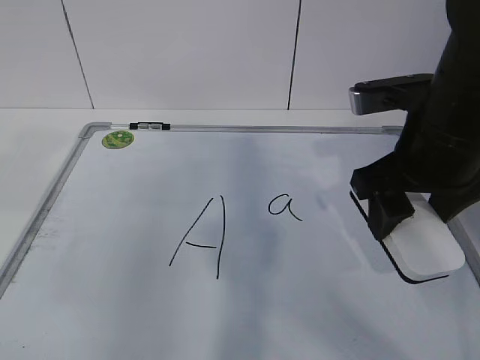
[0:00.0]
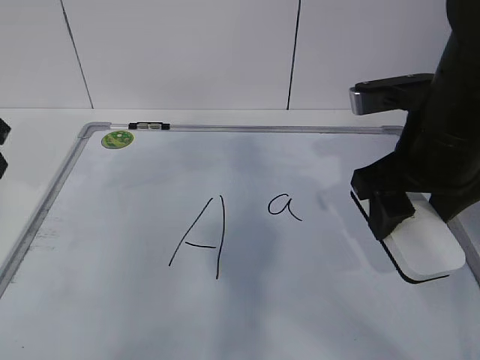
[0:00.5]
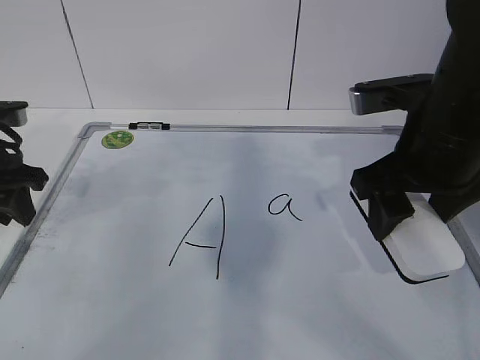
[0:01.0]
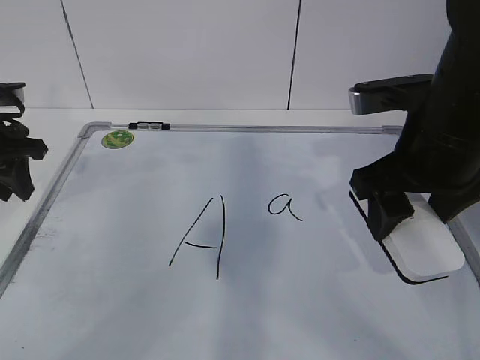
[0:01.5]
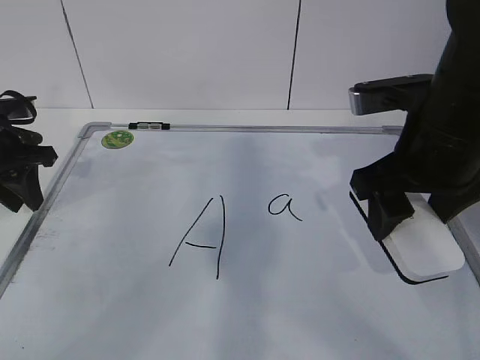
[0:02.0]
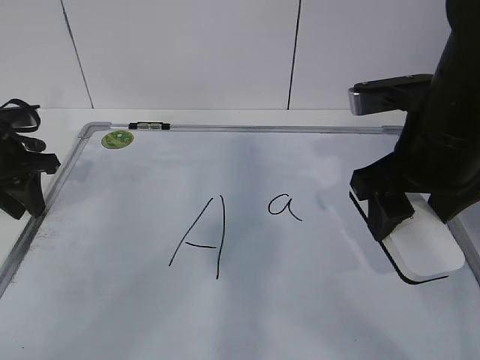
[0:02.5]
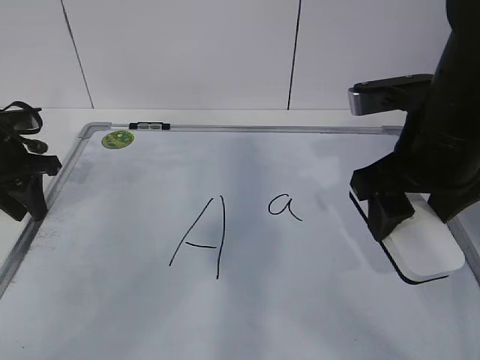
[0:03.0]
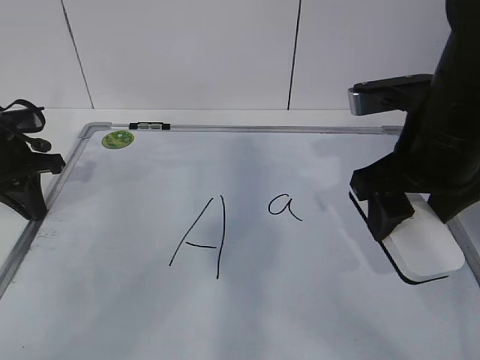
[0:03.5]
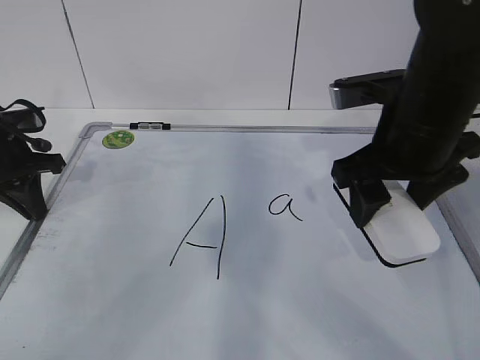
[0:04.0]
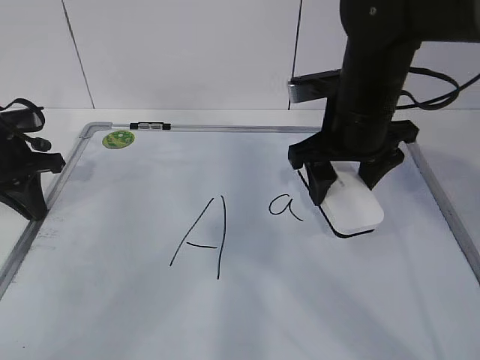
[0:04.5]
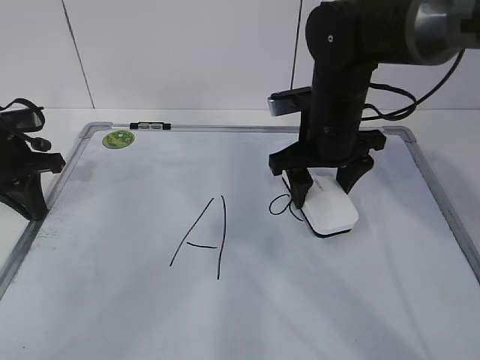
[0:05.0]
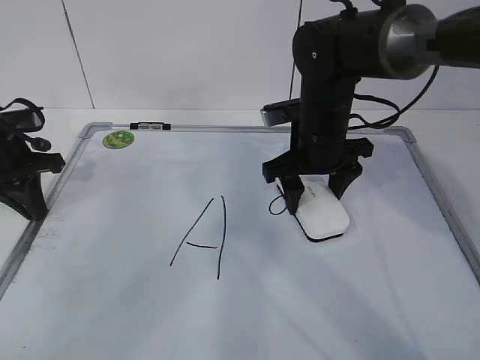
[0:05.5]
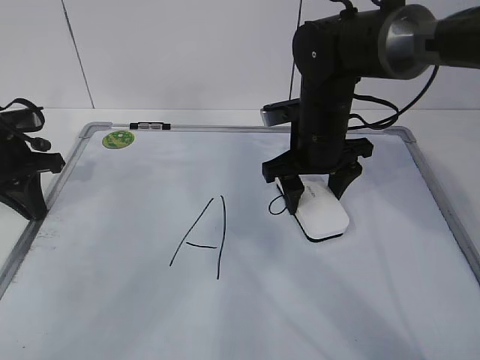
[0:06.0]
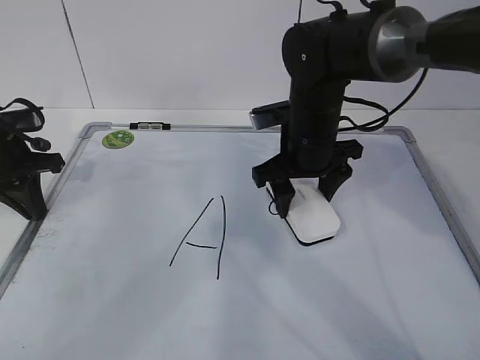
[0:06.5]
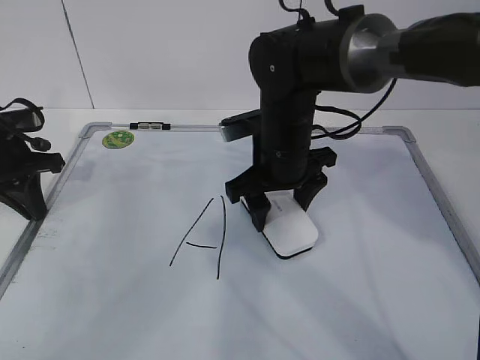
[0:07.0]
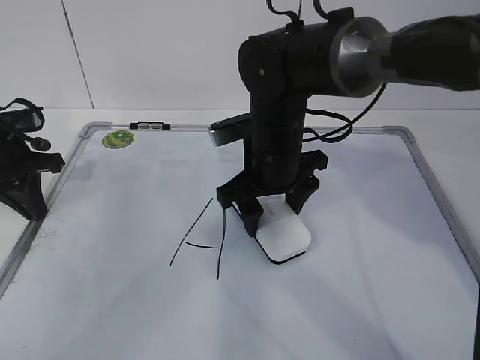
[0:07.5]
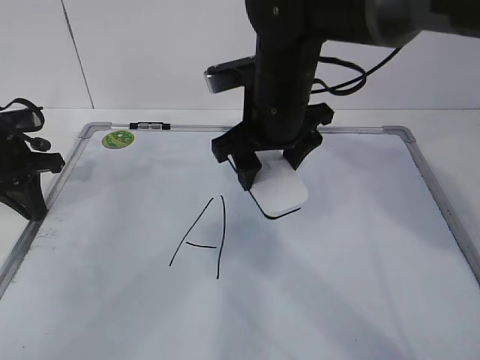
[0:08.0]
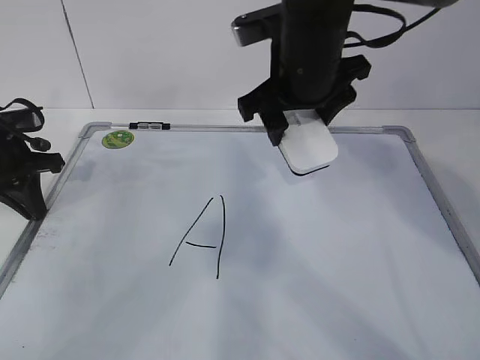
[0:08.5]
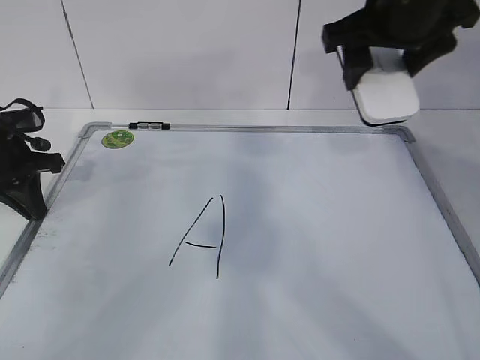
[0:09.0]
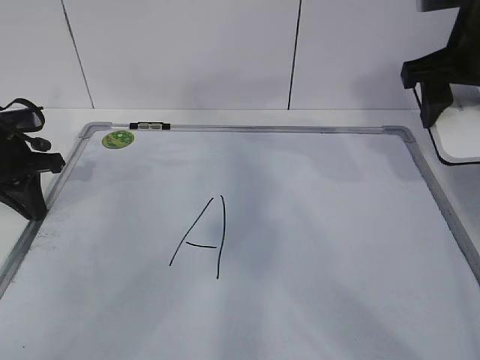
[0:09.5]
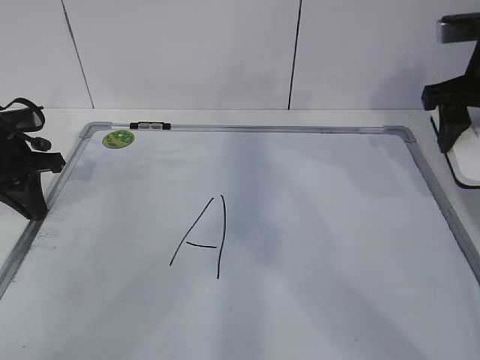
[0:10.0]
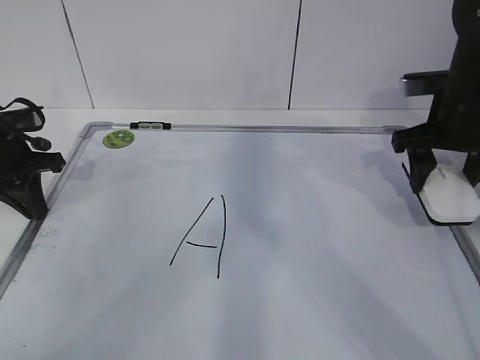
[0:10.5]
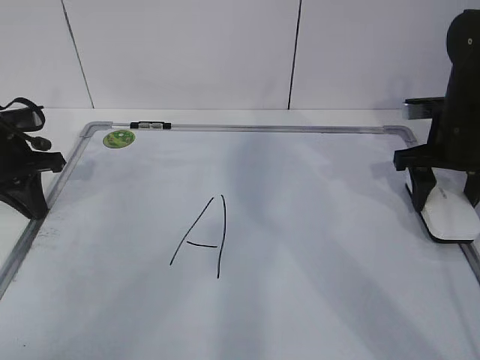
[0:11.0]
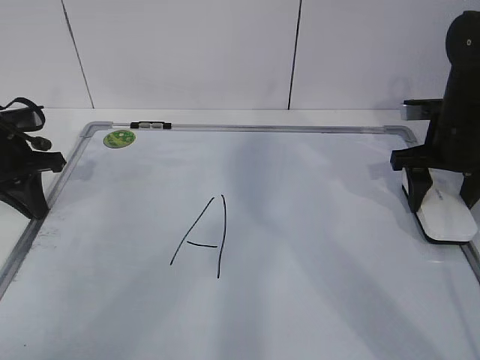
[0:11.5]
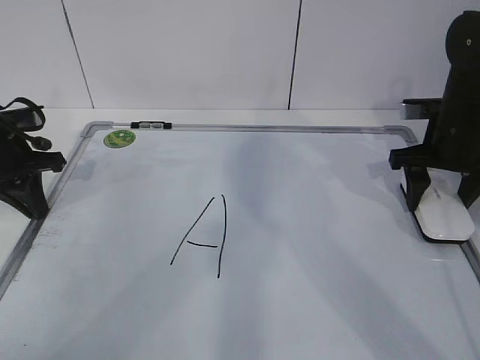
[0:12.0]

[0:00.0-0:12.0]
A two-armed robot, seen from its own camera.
Task of the whole recording: pick up the eraser on the blackboard and erase the letter "a".
Step, 0:01.0 to 0:04.0: Erase the letter a with your right hand.
Step, 0:04.5 to 0:09.5: Put down the eraser with your right hand.
0:00.0 to 0:02.0: The left gripper goes some 25 cm forward and downward.
0:02.0 to 0:04.0: The left gripper closes up.
0:04.0 to 0:06.0: The right gripper moves forward, downward and to the left, some 15 cm.
0:06.0 to 0:08.0: The right gripper goes about 10 cm upward and to the left.
0:08.0 to 0:10.0: The right gripper moves to the right, roughly 20 cm.
0:10.0 to 0:12.0: The right gripper heads downward, covering about 10 cm.

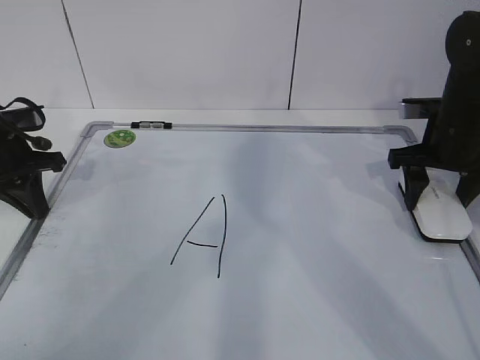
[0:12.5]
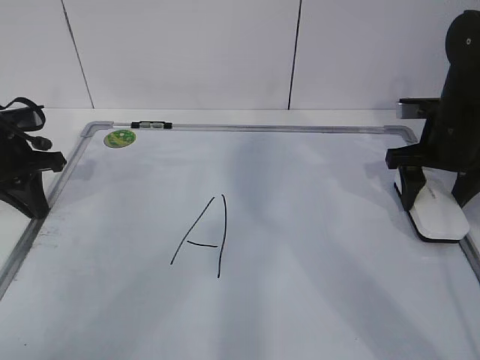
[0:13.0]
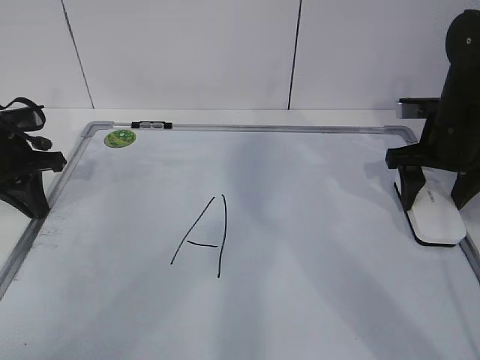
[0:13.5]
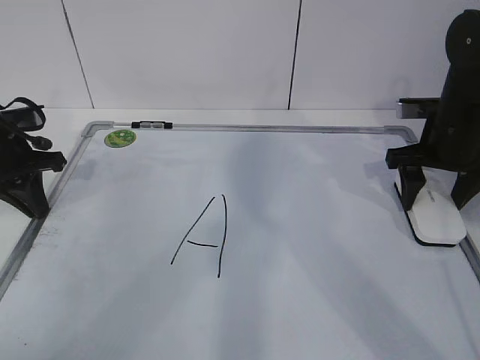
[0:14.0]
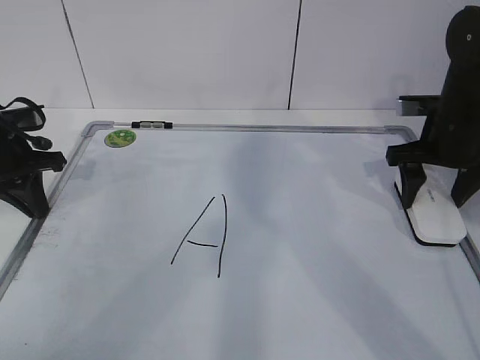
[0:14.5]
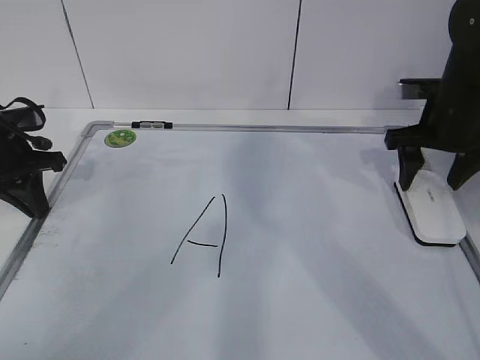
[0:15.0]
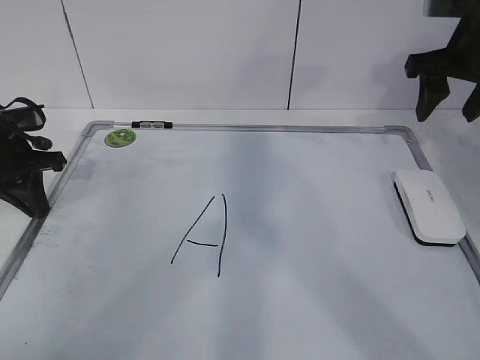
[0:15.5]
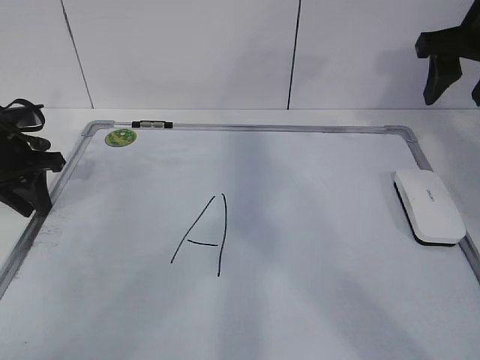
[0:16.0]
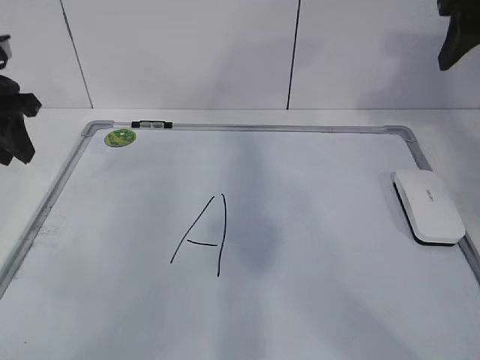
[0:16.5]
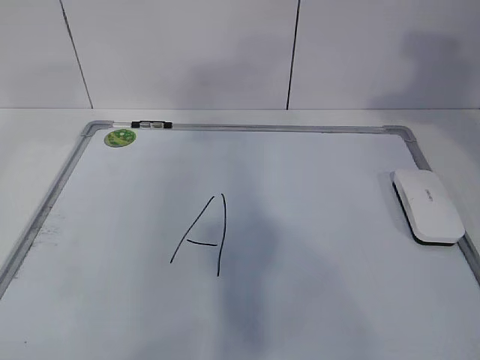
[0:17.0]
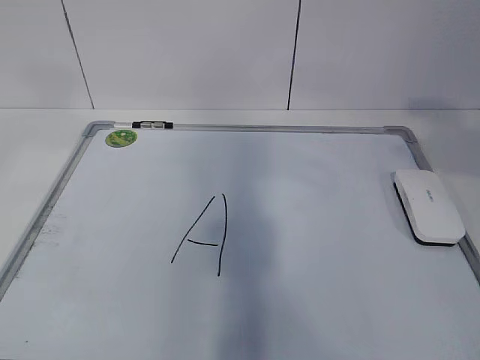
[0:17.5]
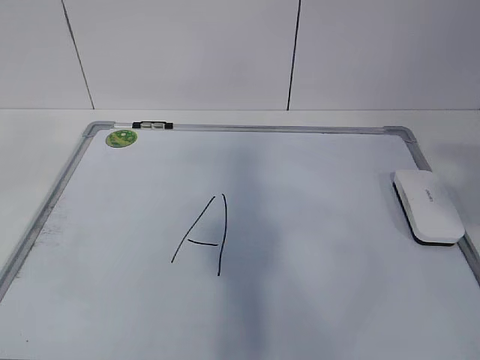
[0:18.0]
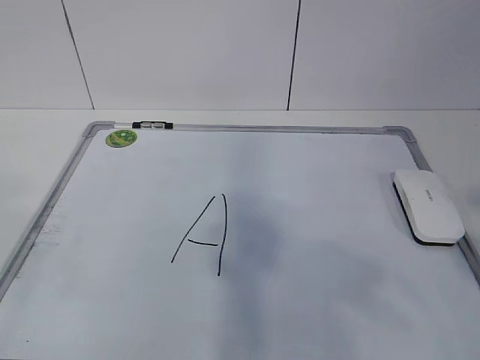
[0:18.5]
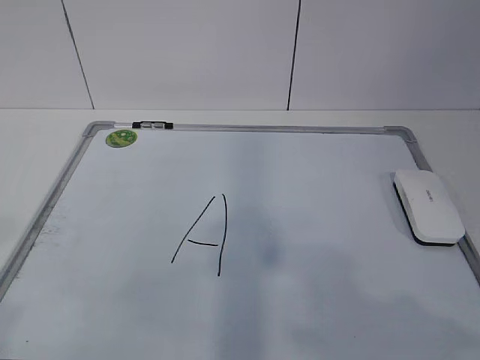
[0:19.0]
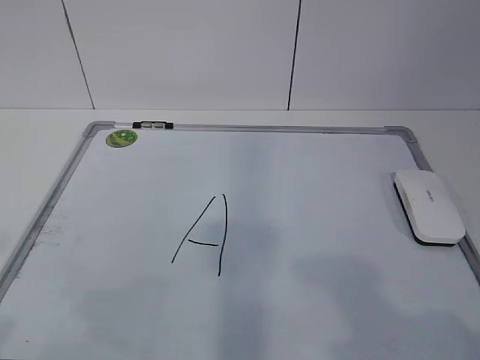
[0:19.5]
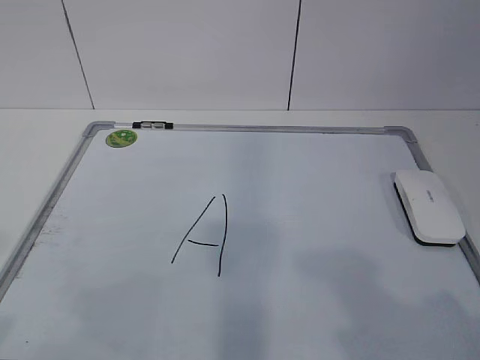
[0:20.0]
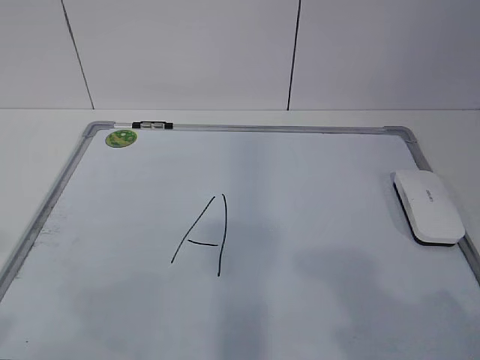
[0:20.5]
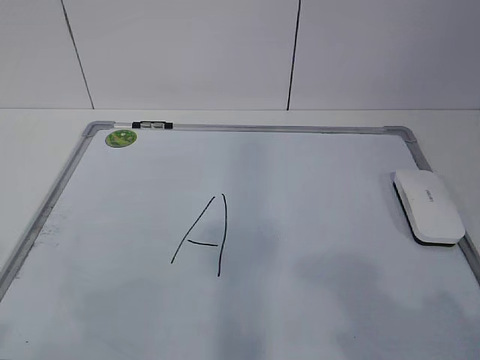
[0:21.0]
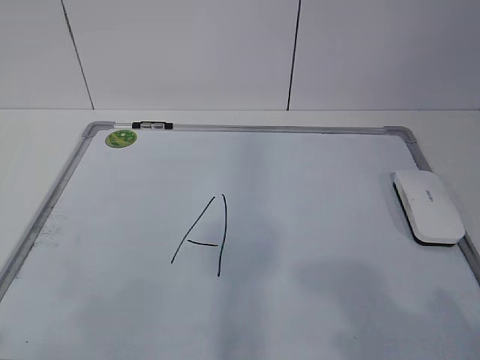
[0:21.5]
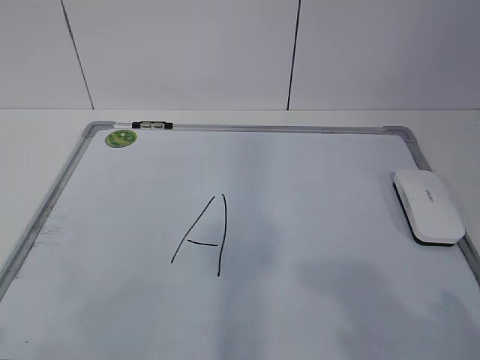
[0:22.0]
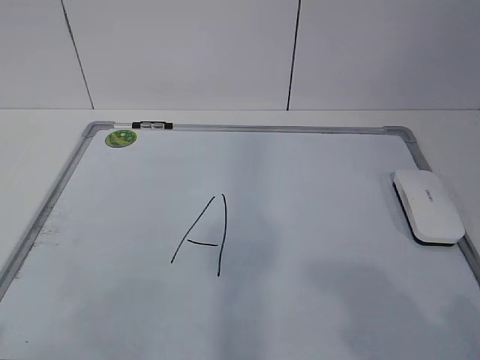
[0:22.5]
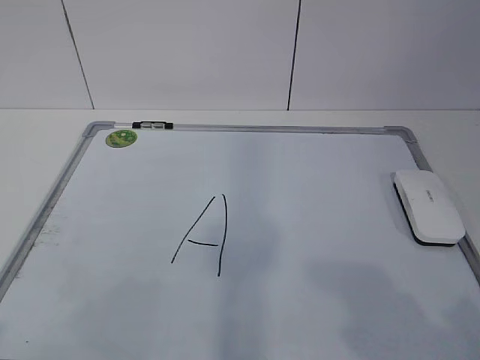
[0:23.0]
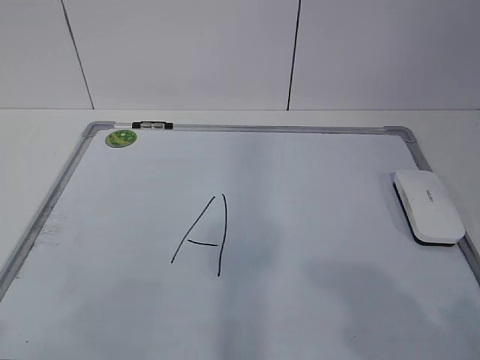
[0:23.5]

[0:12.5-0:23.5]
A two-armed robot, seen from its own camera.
Task of the whole recording: pick up the eraser on the blackboard and erase the letter "a".
0:12.5 to 0:14.5: Neither gripper changes place.
0:14.5 to 0:16.0: The right gripper heads upward, covering about 15 cm, and closes its fingers; the left gripper opens.
0:16.0 to 0:18.0: The left gripper moves backward and upward, about 50 cm; the right gripper goes about 30 cm backward.
0:18.0 to 0:20.0: The right gripper shifts about 15 cm downward and backward; the left gripper is displaced downward by approximately 20 cm.
